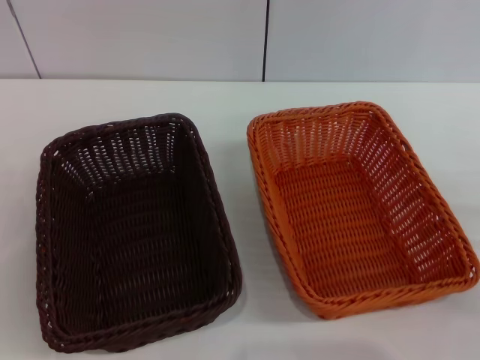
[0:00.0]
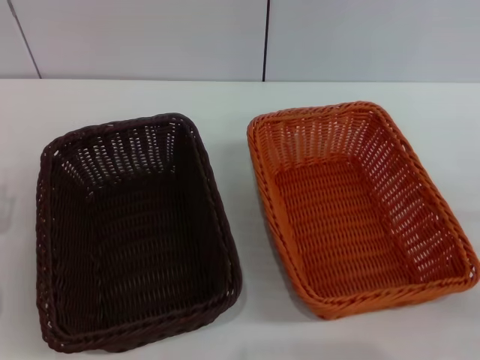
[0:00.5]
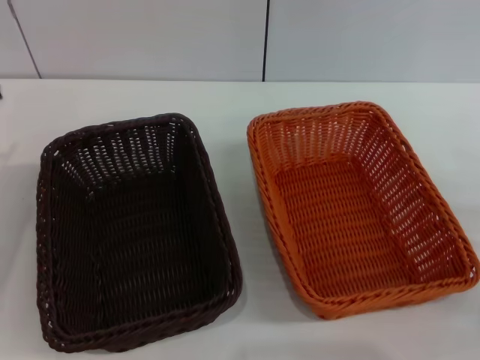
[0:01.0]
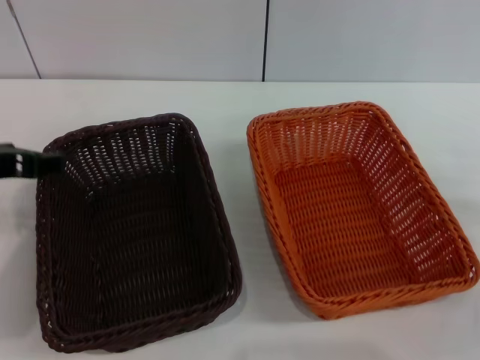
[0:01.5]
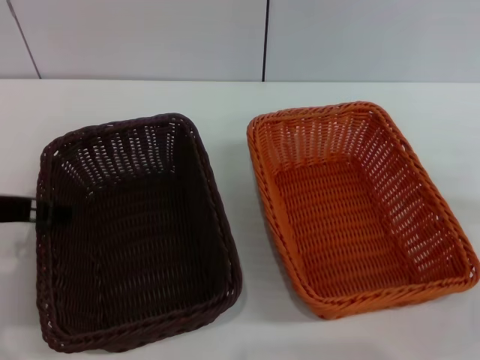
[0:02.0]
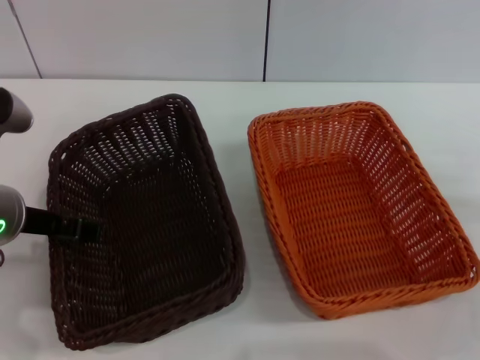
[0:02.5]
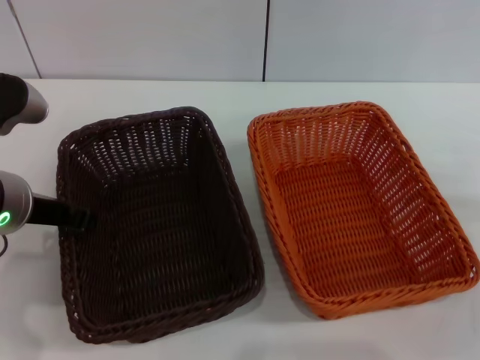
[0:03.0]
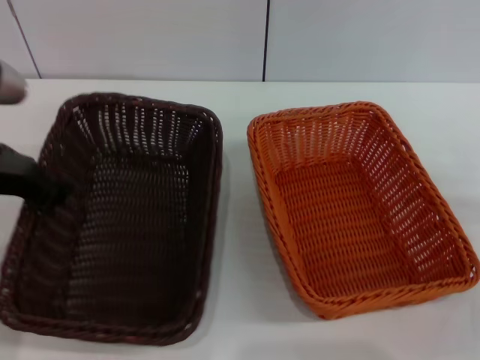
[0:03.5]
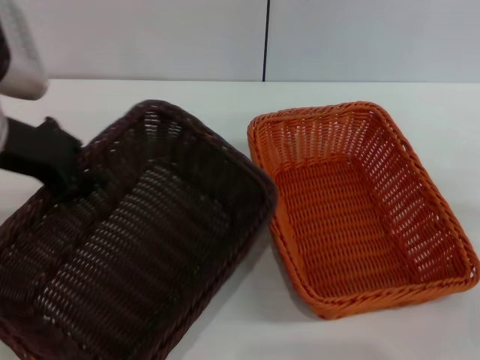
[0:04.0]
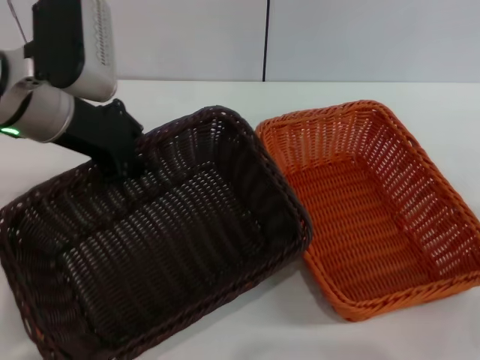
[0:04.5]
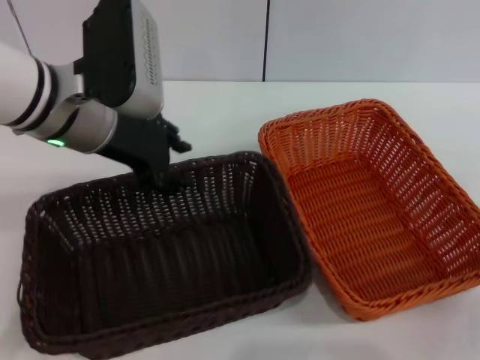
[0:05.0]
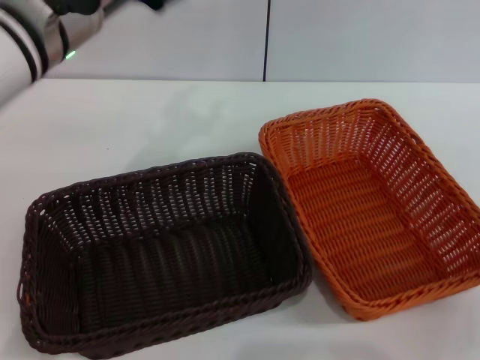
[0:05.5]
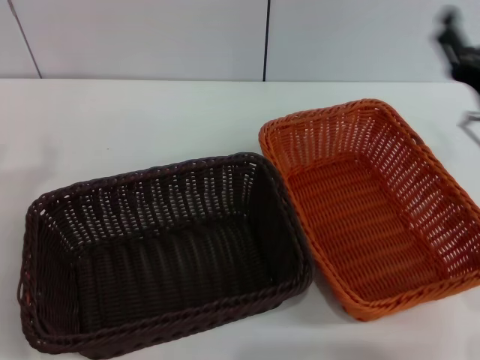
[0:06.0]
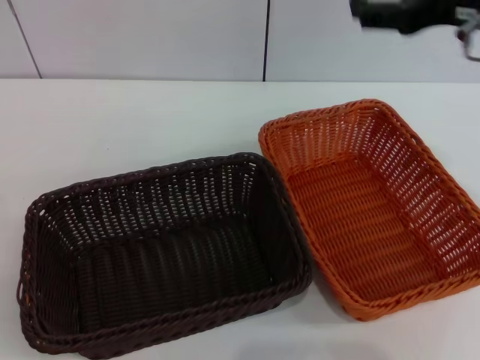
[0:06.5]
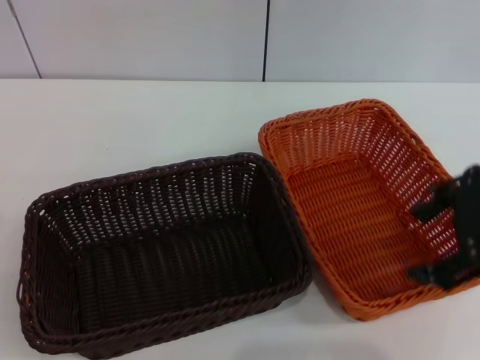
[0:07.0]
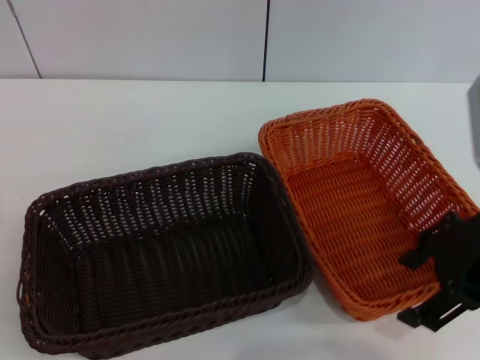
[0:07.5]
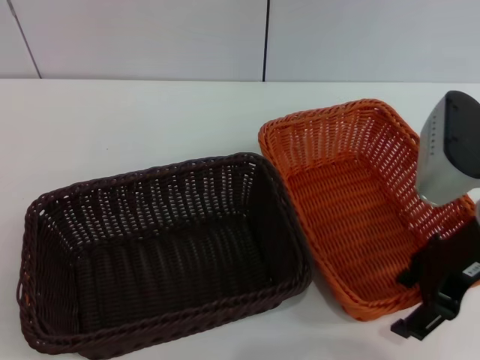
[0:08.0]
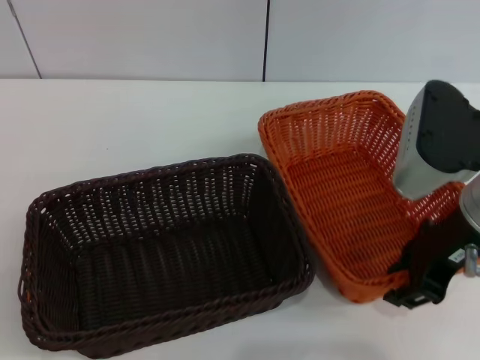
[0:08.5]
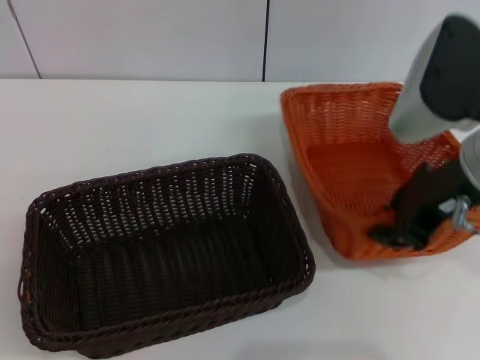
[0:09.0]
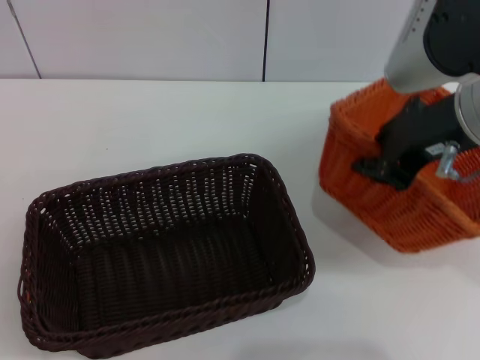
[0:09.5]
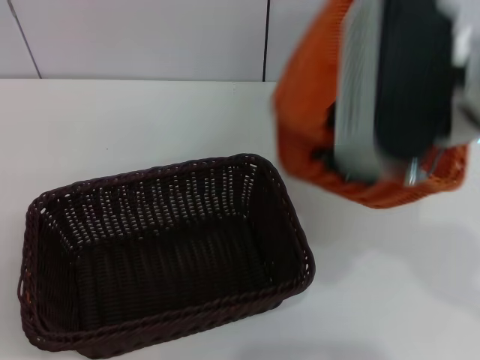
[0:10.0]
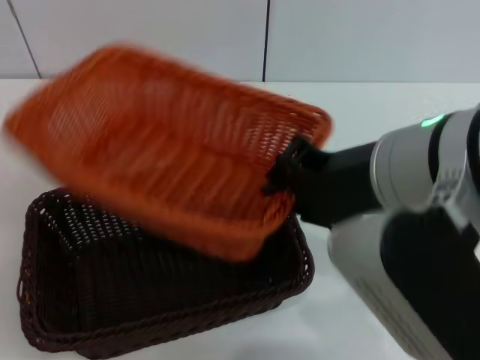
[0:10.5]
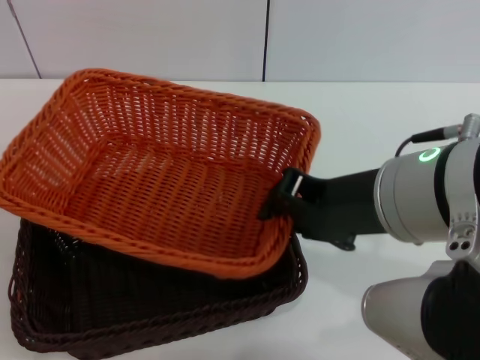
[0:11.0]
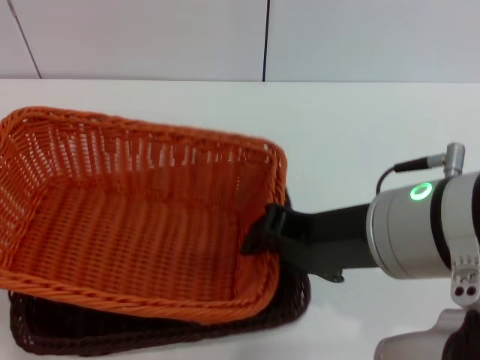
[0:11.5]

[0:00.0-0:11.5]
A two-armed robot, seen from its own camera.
Step, 0:00.0 to 0:03.0: Pick up the dark basket with the left gripper.
Step, 0:04.0 to 0:04.5: Place the dark basket in the center of view with the left gripper.
Step, 0:05.5 to 0:08.5: Pick up the light basket with the right gripper.
0:00.0 to 0:02.0: The left gripper goes approximately 15 cm upward and to the right.
0:02.0 to 0:04.0: The left gripper shifts roughly 5 cm forward, and closes up.
0:04.0 to 0:06.0: The right gripper travels to the left and upward by some 10 cm; the left gripper is displaced downward and backward by some 10 cm, and opens its fingers.
0:06.0 to 0:07.5: The right gripper travels upward by some 10 cm.
0:07.5 to 0:09.5: The right gripper shifts by roughly 5 cm, and closes its fingers.
0:09.5 to 0:11.5: The right gripper is displaced backward and to the left by roughly 10 cm.

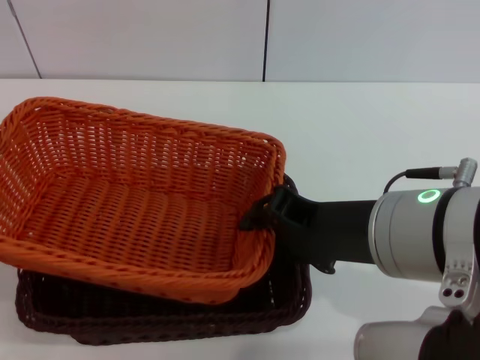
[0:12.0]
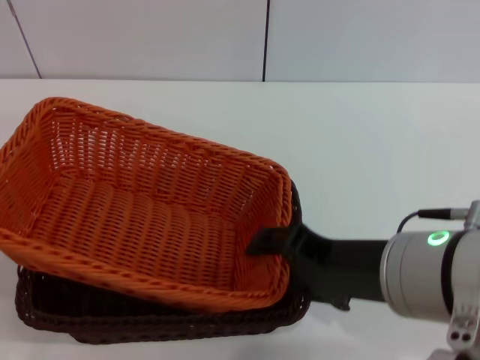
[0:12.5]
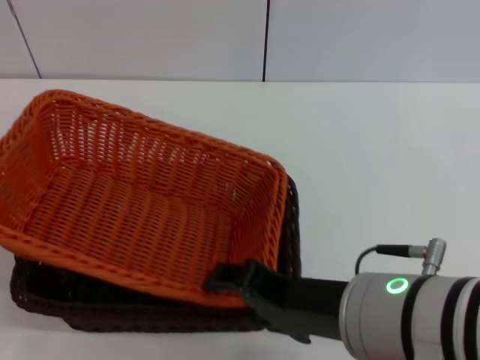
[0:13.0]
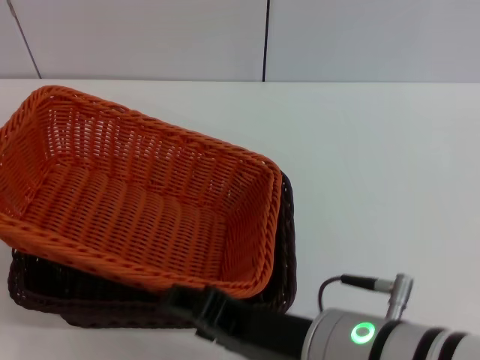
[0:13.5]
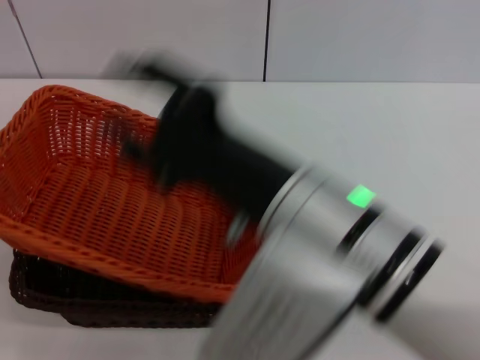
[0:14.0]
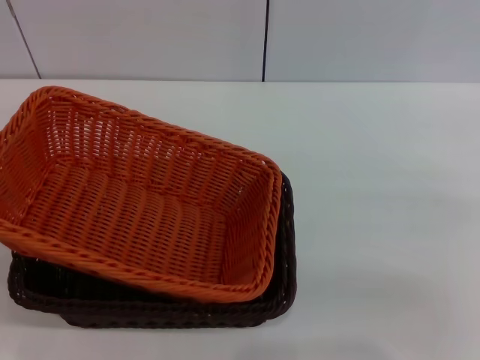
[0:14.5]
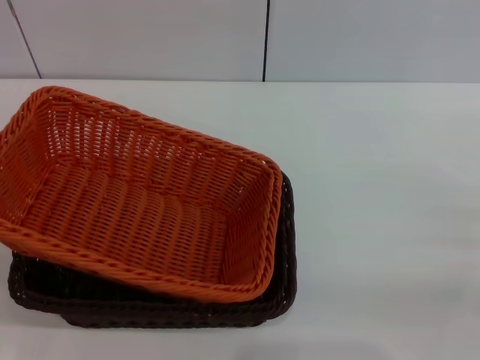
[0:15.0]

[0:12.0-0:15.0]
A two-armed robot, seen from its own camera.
0:12.0 to 0:13.5: The right gripper is displaced backward by about 5 cm, and opens.
0:13.5 to 0:15.0: The right gripper heads to the right, covering roughly 25 cm.
